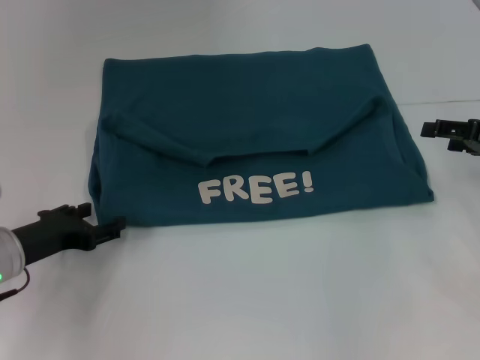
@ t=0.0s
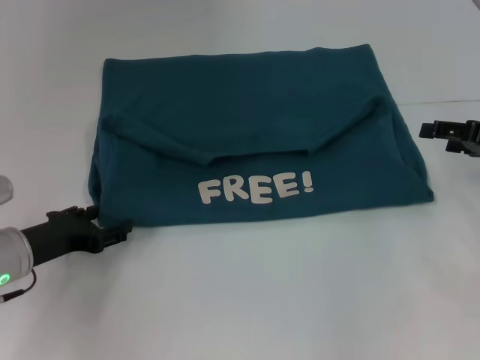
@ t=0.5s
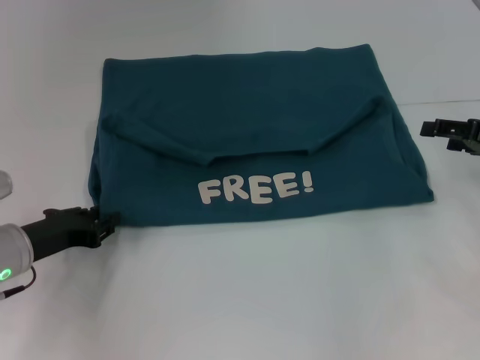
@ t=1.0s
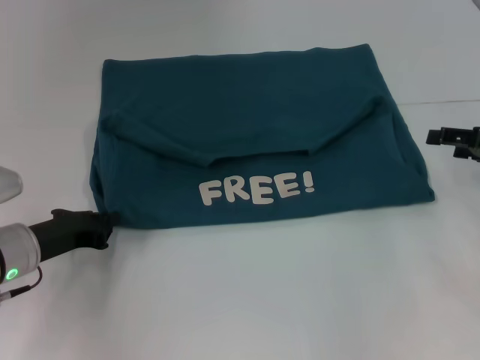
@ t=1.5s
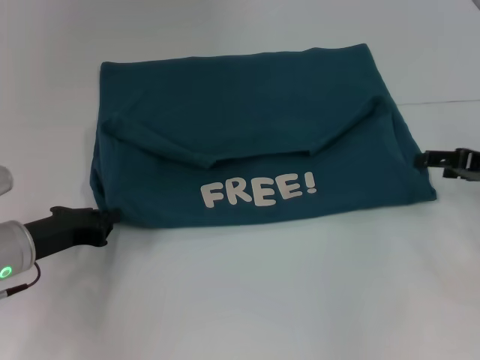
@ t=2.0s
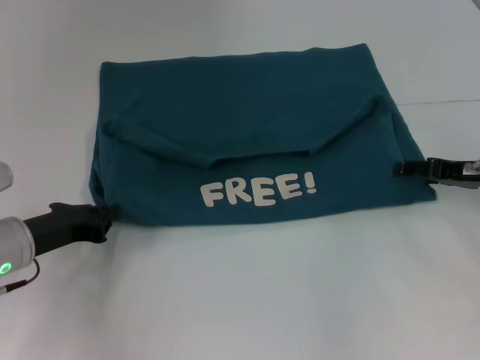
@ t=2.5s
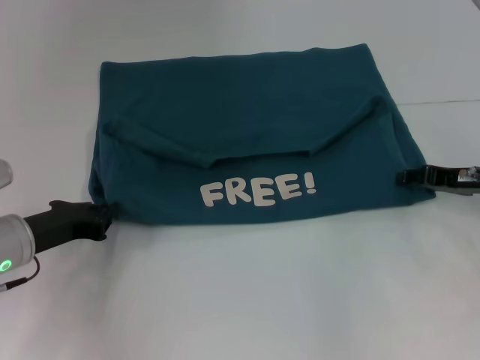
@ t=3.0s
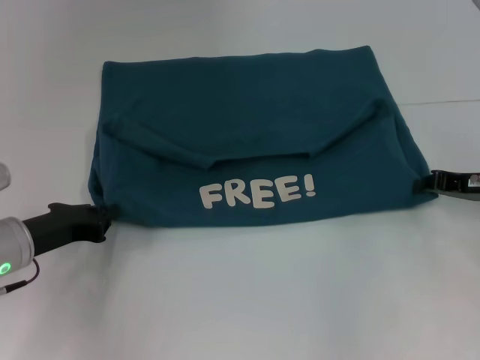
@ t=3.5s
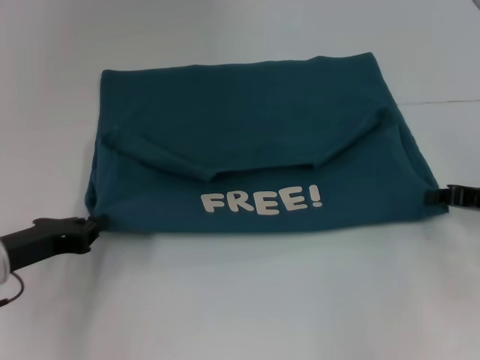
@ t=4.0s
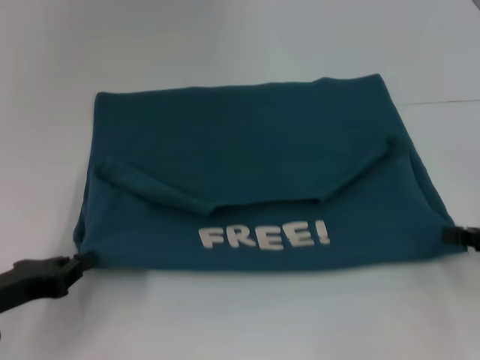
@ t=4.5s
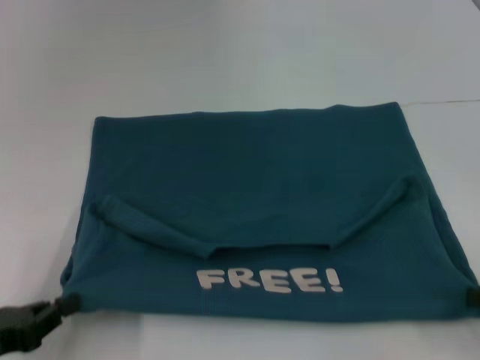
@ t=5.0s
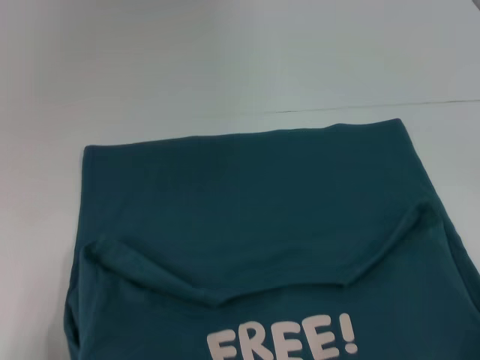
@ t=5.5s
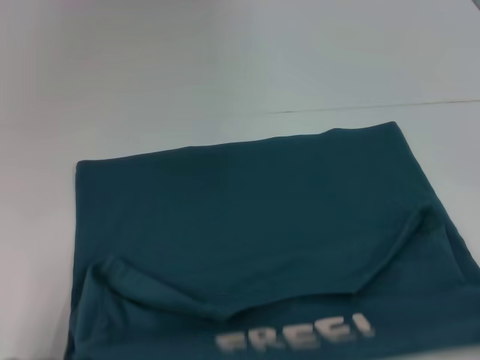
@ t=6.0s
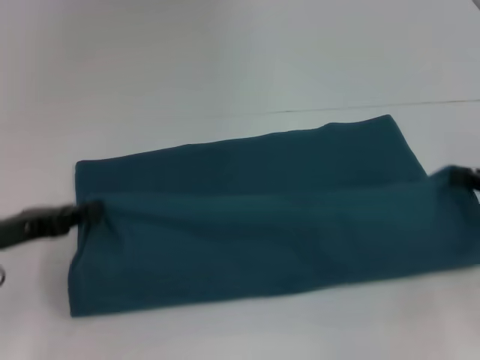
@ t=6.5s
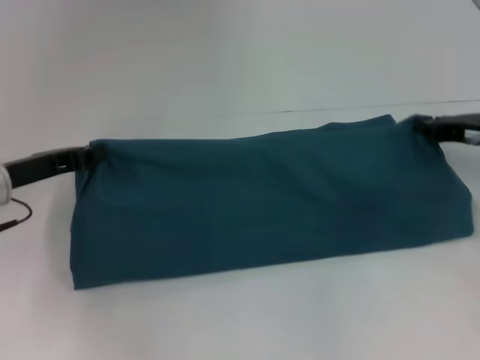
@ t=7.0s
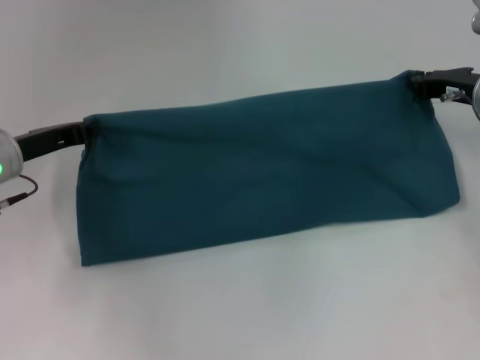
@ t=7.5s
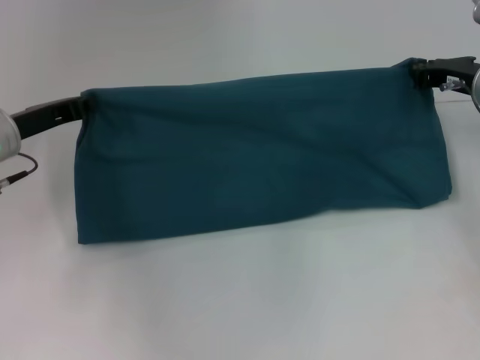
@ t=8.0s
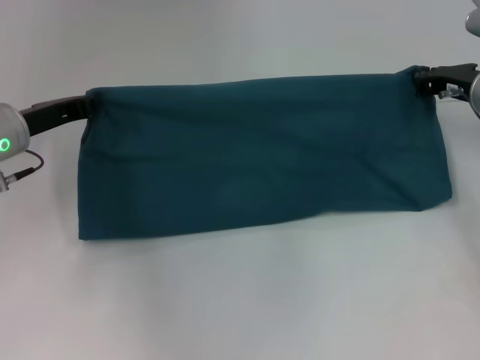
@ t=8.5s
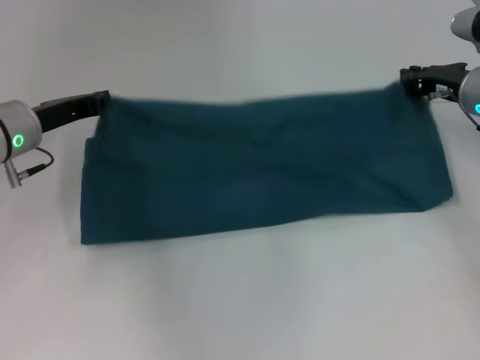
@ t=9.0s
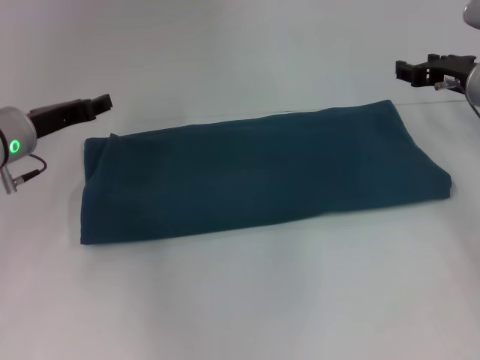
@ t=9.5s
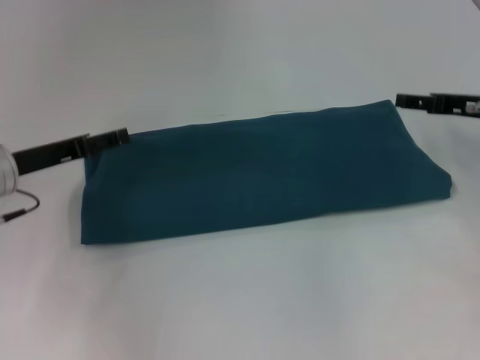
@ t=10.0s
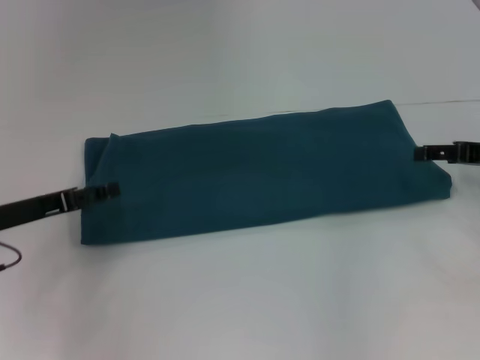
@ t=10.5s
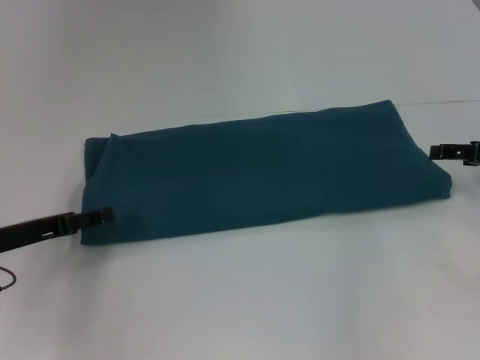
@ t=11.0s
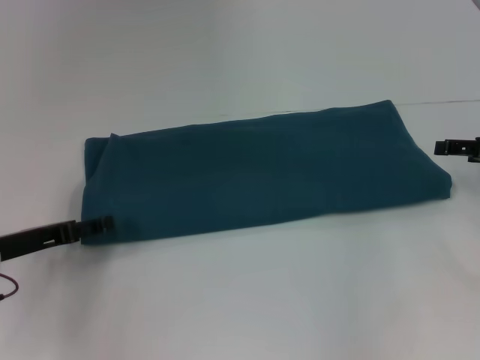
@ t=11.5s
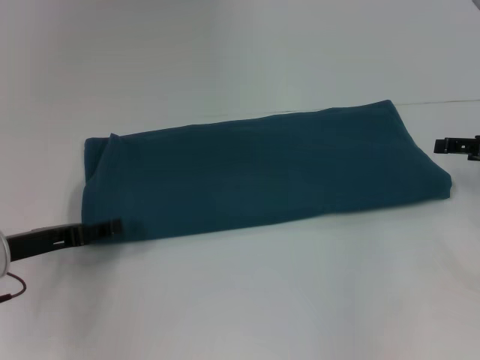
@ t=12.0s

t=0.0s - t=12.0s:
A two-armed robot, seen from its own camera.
Step, t=0.0s - t=5.0s: Pull the clothes with your left hand.
Step, t=0.0s - t=5.0s: Pull the clothes with your right hand.
Step, t=5.5s - t=9.0s: Fold the clothes to the right.
t=0.0s - t=2.0s: The left gripper closes its fingers.
t=2.0s - t=4.0s: The right gripper closes its fingers.
t=4.0s - t=6.0s: Both grippers travel together backward, about 15 cm.
t=6.0s - t=8.0s: The left gripper moves forward, approximately 25 cm; the right gripper travels forward and to the left by approximately 30 cm.
t=8.0s - t=10.0s: The left gripper opens up, while the right gripper opens its fingers.
t=10.0s - t=12.0s: The right gripper changes place by roughly 5 cm. Meanwhile the left gripper moves backward, about 5 cm.

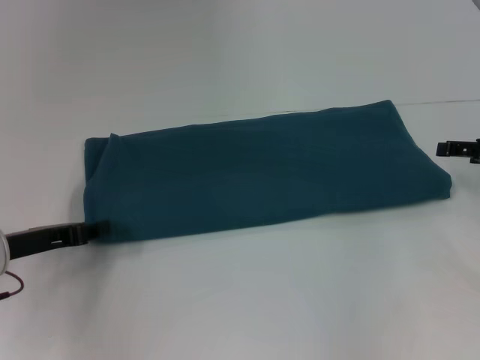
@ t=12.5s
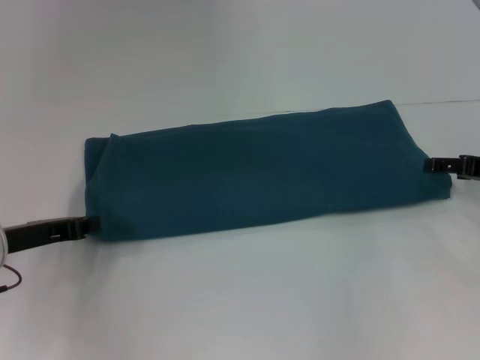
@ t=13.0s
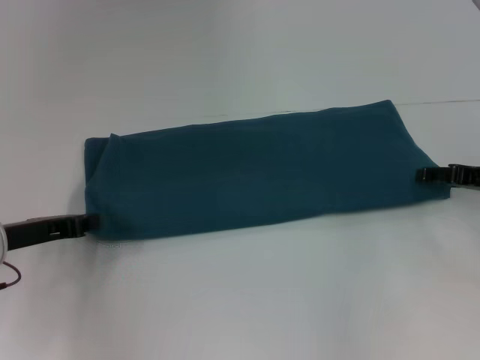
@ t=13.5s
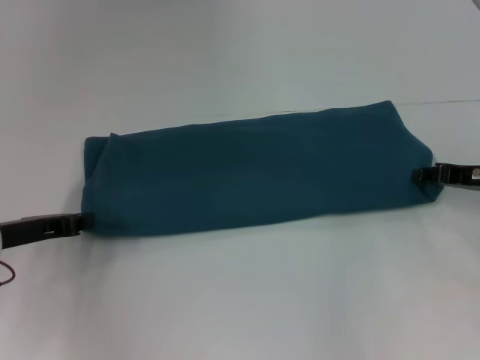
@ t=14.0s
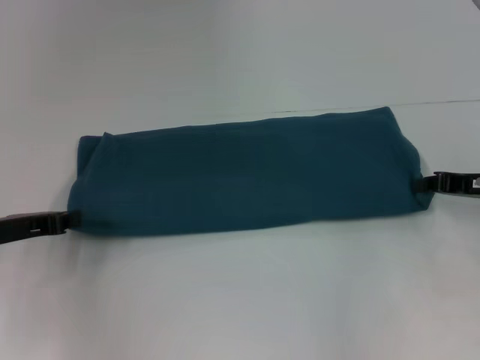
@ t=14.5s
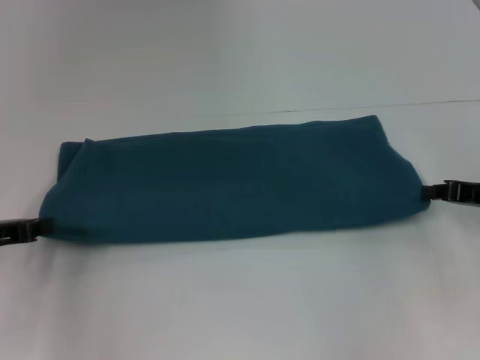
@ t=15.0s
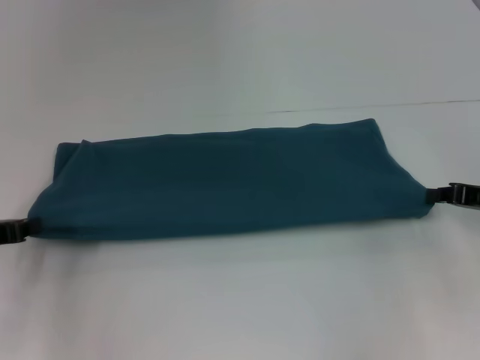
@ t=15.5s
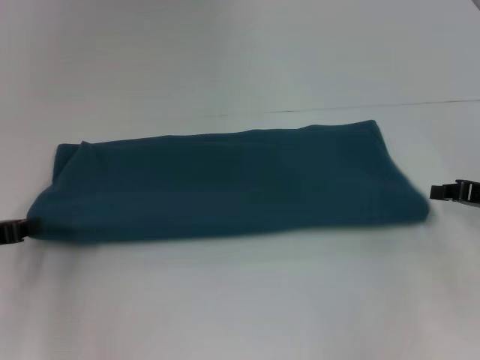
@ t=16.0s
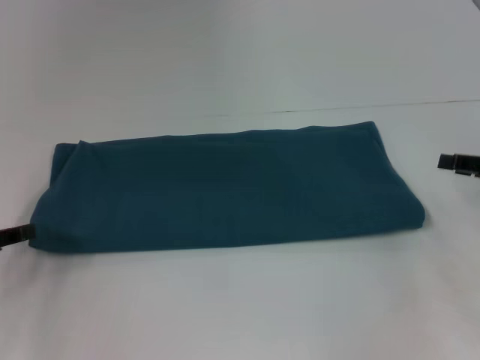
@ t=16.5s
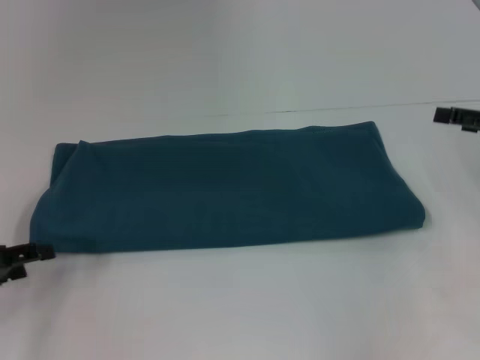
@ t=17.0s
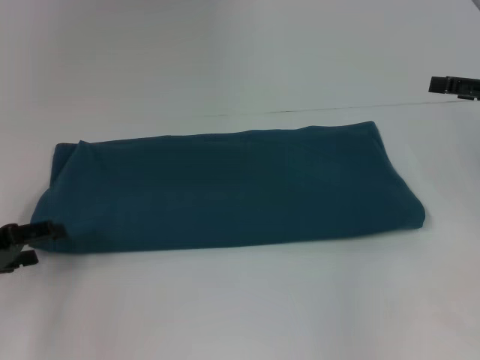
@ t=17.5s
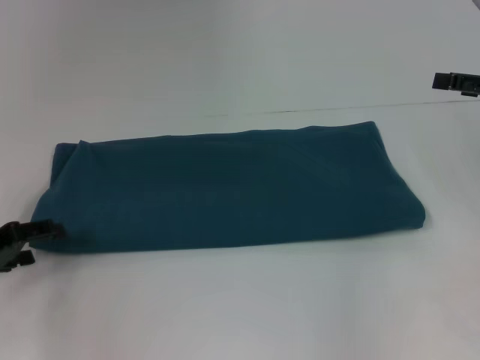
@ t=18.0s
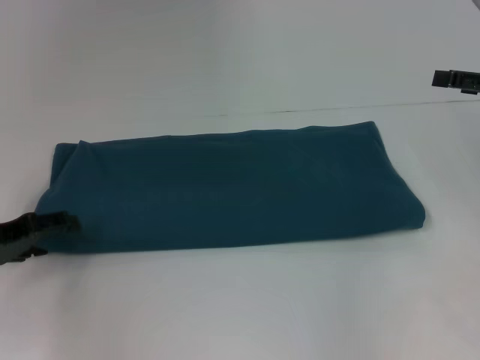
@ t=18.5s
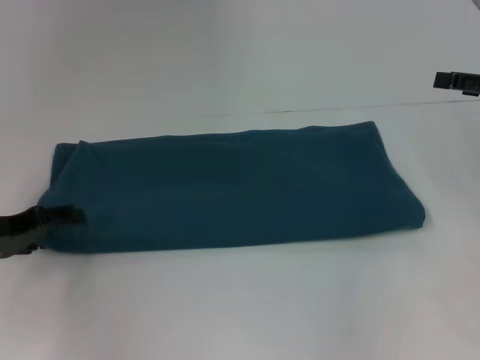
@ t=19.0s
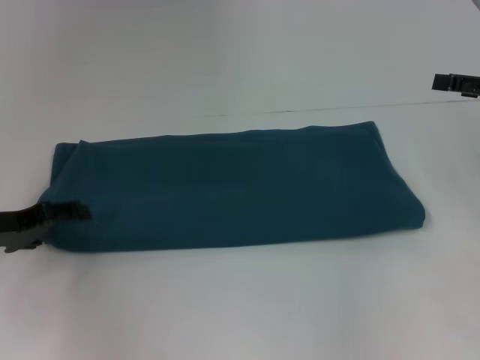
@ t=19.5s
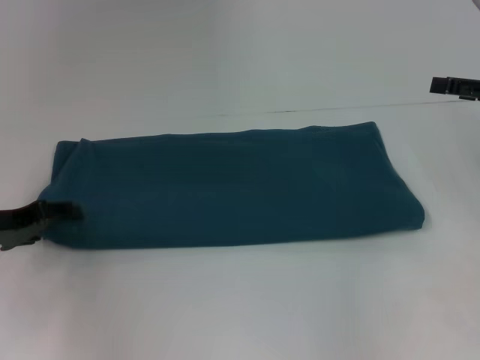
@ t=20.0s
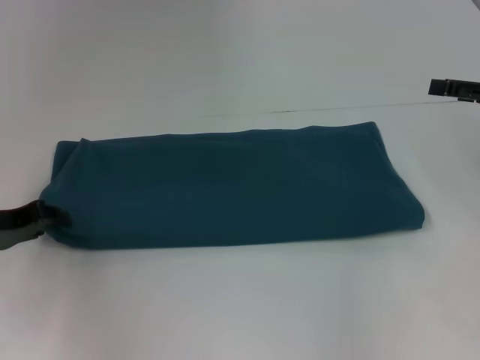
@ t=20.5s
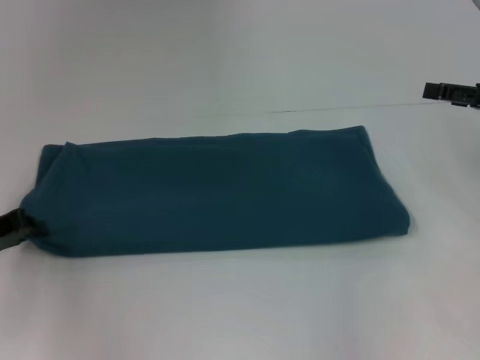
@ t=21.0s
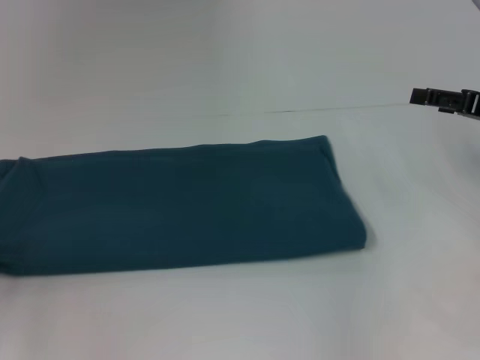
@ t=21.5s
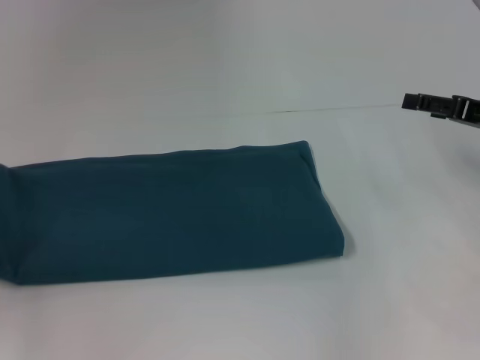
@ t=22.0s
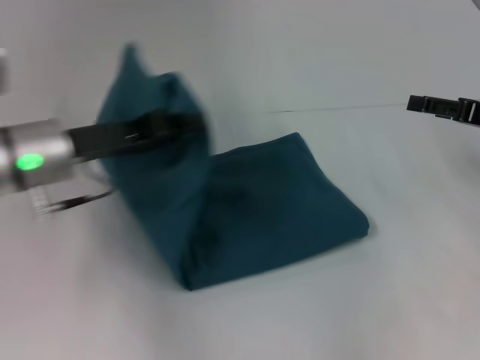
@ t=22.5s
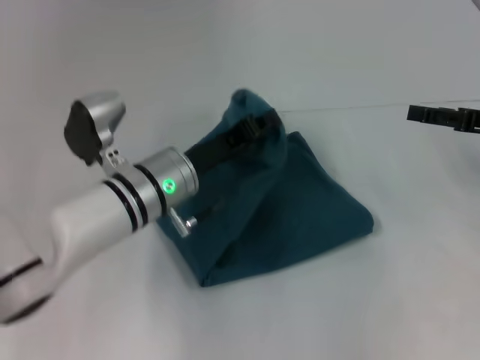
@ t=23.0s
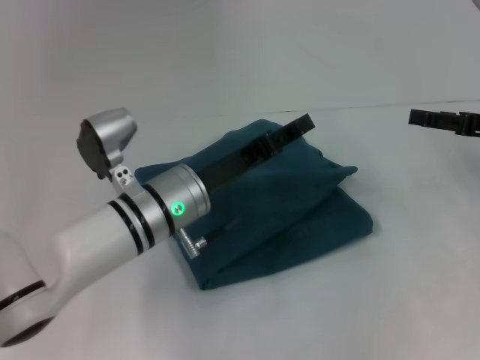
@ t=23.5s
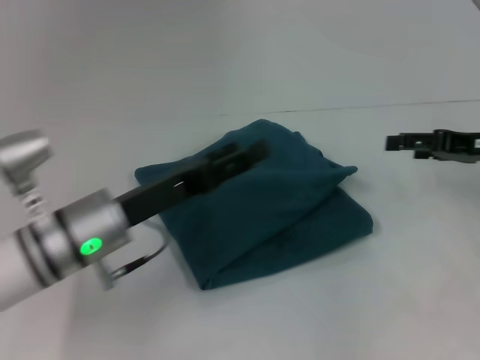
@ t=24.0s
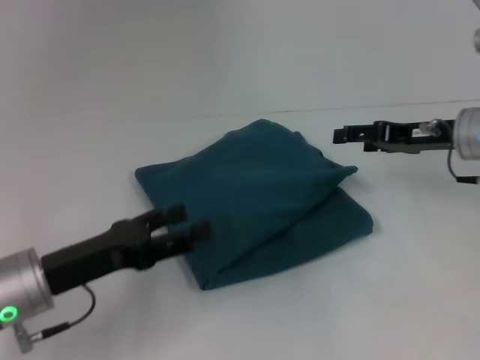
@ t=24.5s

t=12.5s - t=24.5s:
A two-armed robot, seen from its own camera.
Step, t=12.5s - t=23.5s: Fold the clothes to the left.
t=12.5s - t=14.5s: The left gripper closes; the right gripper closes its fingers.
t=14.5s - t=16.5s: The right gripper moves some 5 cm. Meanwhile the left gripper goes roughly 5 cm to the left.
t=16.5s - t=18.5s: The right gripper goes roughly 5 cm upward, and opens its fingers. The left gripper opens.
t=18.5s - t=20.5s: The left gripper closes its fingers.
t=20.5s - t=22.5s: The left gripper is displaced to the right and upward by about 15 cm, and closes its fingers.
t=22.5s - t=24.5s: The right gripper shifts approximately 5 cm to the left; the left gripper heads backward and downward, covering approximately 10 cm, reaches approximately 10 cm to the right, then returns, and opens up.

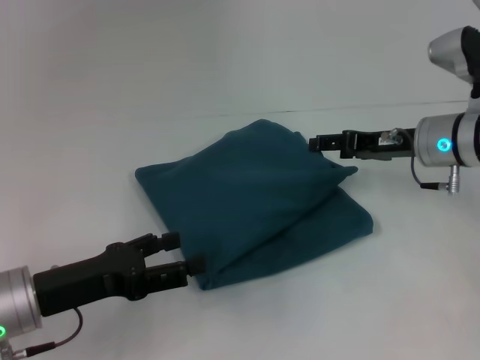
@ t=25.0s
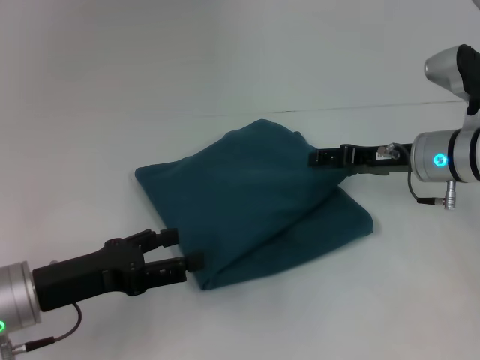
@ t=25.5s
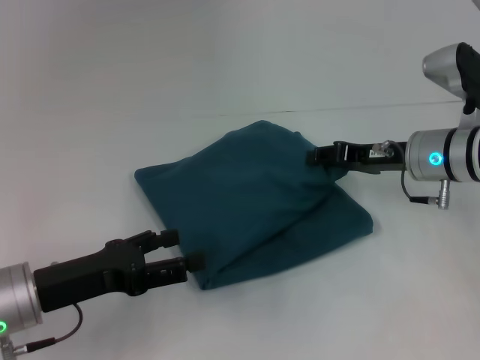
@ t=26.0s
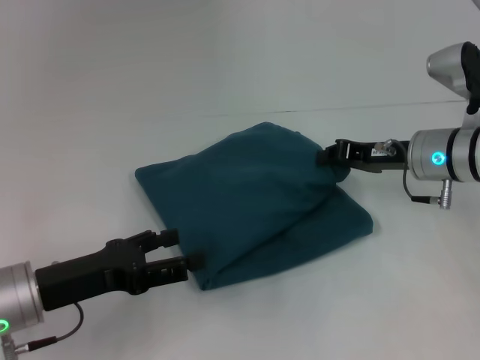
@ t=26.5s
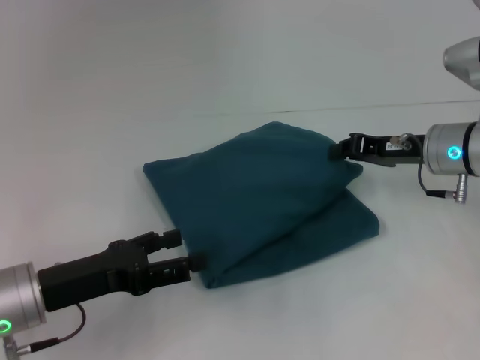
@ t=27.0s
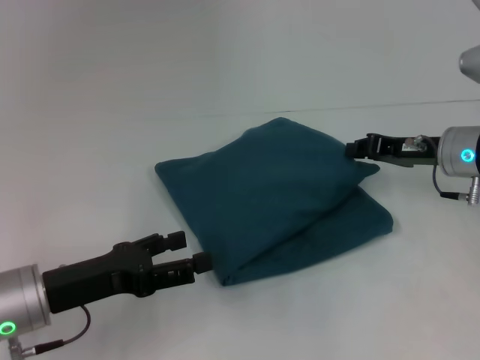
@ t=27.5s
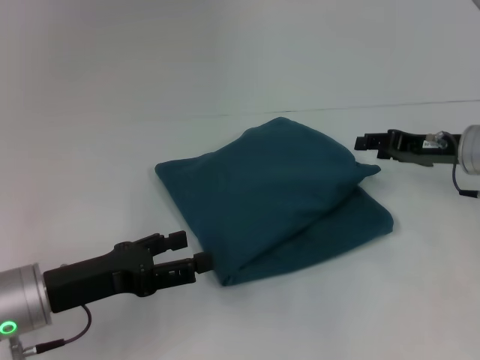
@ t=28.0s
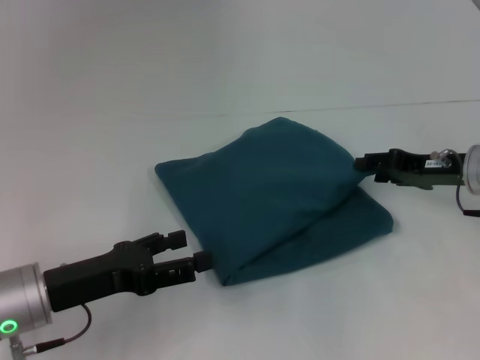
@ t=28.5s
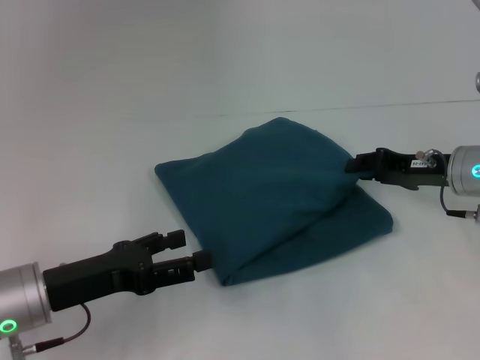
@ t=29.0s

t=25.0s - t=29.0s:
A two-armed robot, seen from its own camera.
t=25.0s - t=27.0s: The right gripper closes its fingers.
t=27.0s - t=29.0s: The right gripper opens its fingers.
